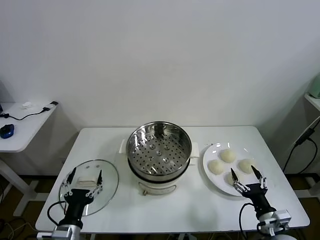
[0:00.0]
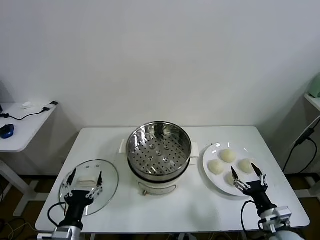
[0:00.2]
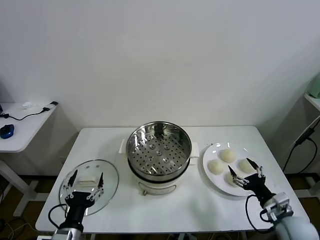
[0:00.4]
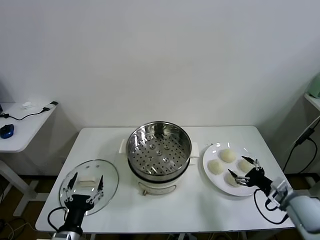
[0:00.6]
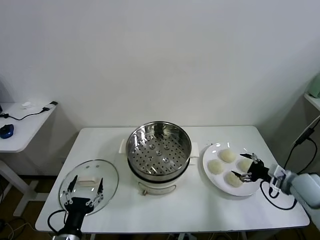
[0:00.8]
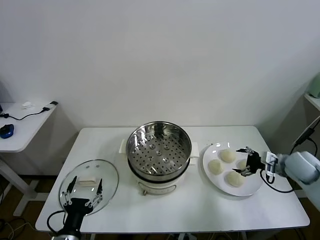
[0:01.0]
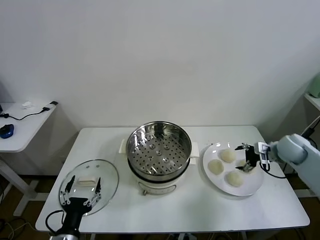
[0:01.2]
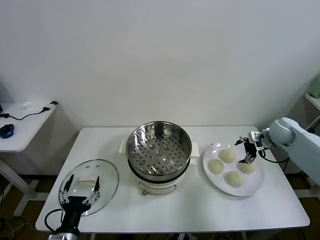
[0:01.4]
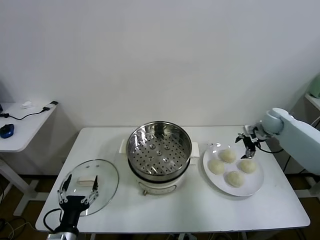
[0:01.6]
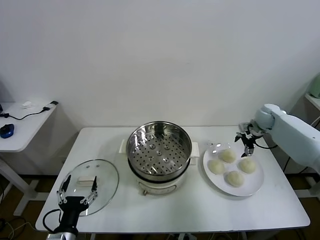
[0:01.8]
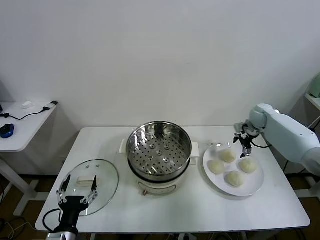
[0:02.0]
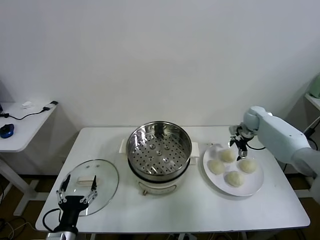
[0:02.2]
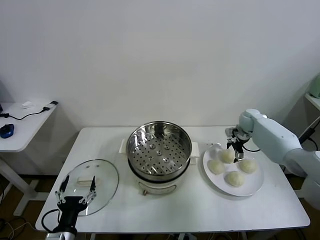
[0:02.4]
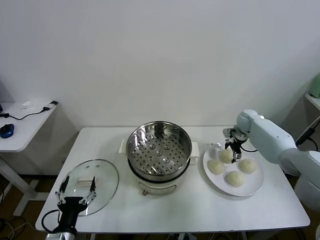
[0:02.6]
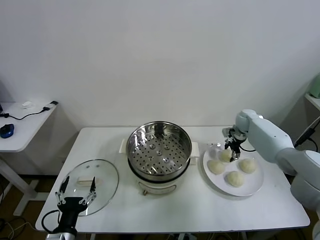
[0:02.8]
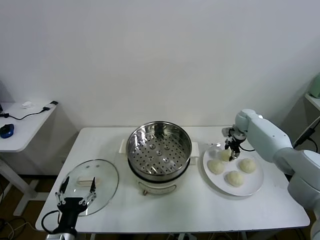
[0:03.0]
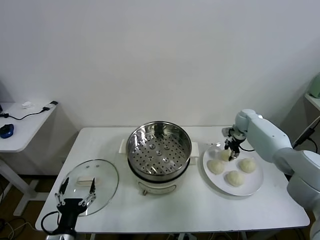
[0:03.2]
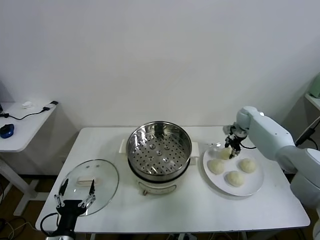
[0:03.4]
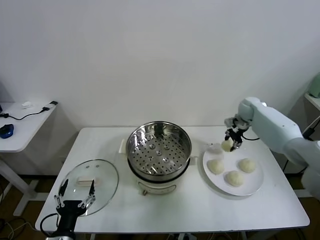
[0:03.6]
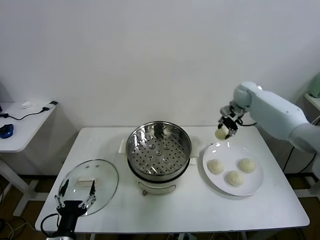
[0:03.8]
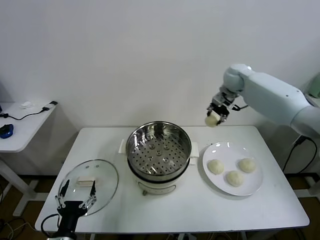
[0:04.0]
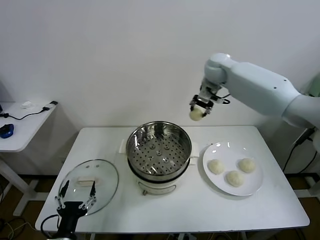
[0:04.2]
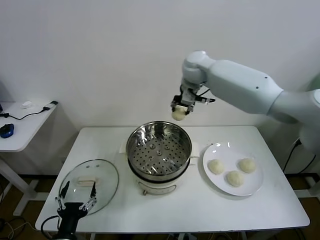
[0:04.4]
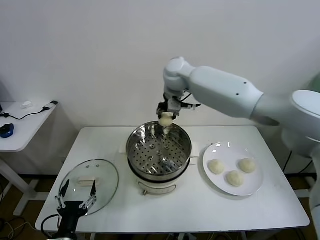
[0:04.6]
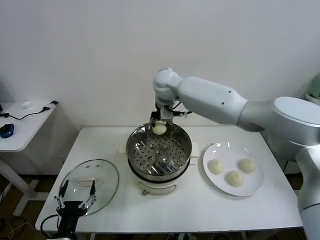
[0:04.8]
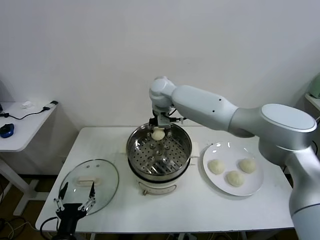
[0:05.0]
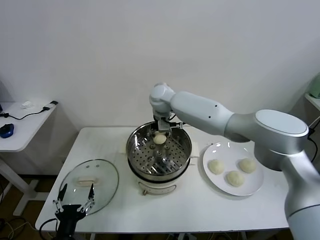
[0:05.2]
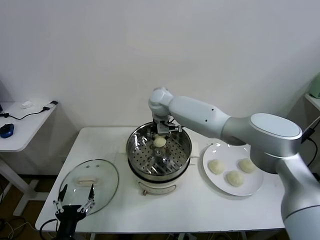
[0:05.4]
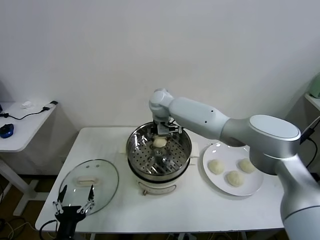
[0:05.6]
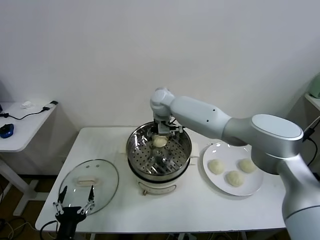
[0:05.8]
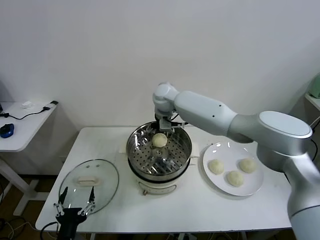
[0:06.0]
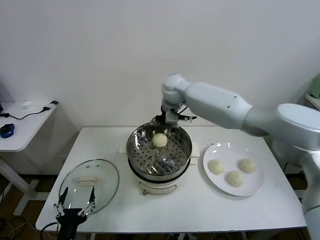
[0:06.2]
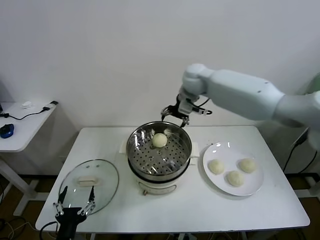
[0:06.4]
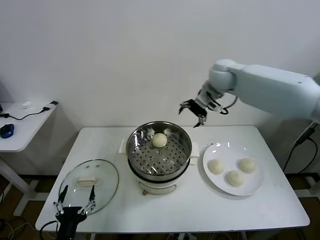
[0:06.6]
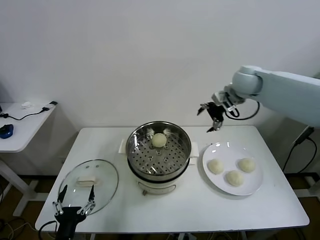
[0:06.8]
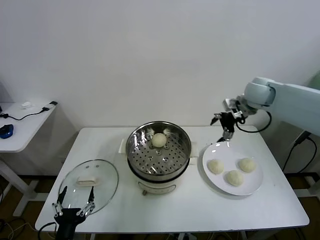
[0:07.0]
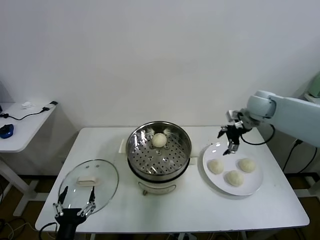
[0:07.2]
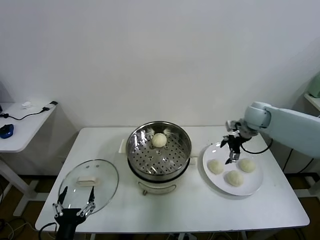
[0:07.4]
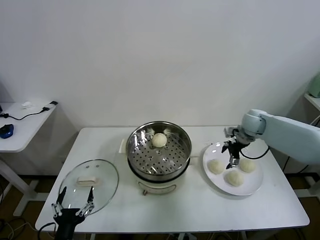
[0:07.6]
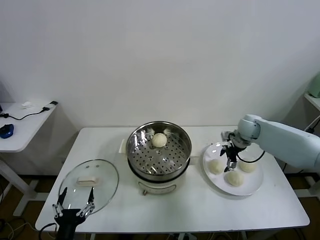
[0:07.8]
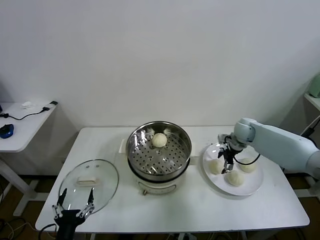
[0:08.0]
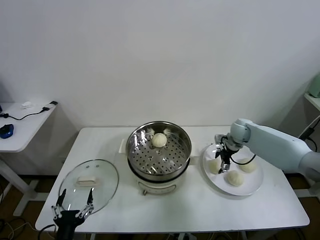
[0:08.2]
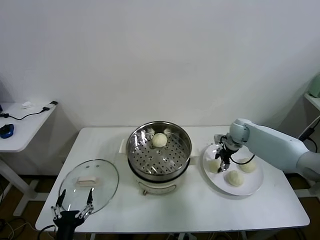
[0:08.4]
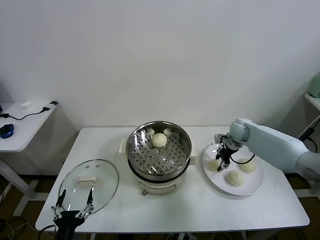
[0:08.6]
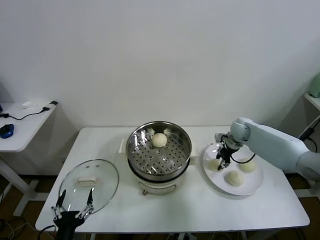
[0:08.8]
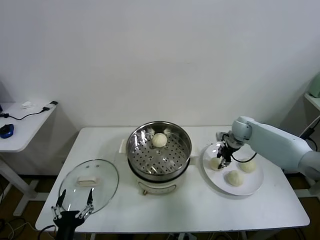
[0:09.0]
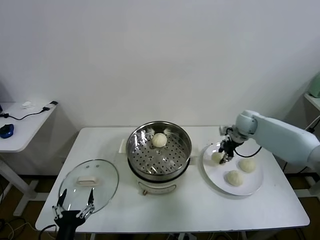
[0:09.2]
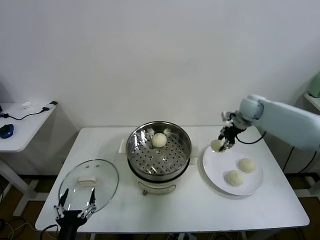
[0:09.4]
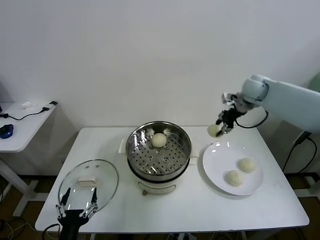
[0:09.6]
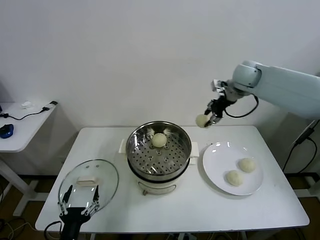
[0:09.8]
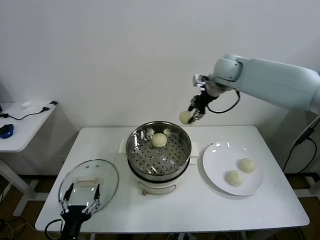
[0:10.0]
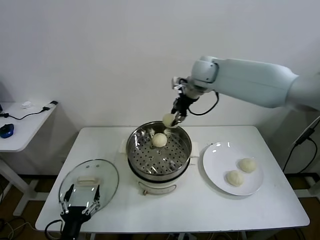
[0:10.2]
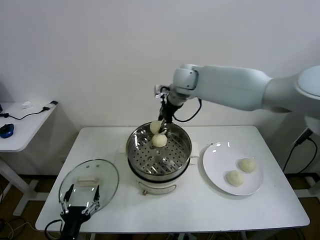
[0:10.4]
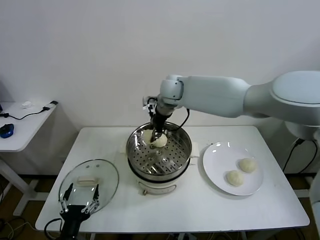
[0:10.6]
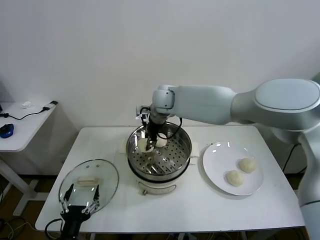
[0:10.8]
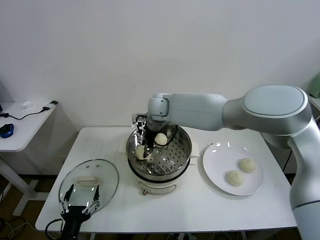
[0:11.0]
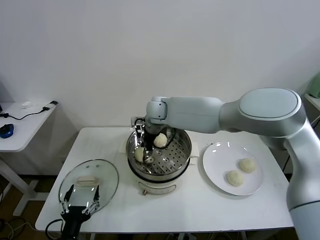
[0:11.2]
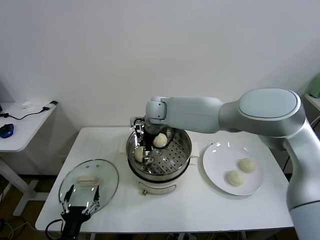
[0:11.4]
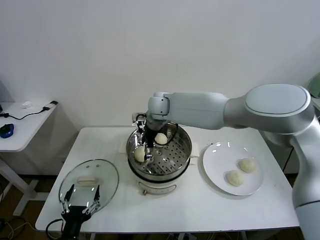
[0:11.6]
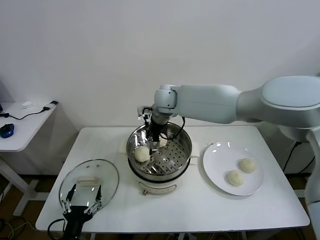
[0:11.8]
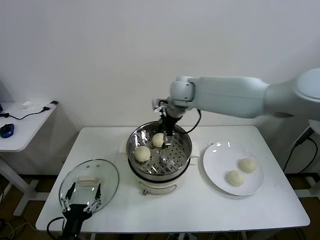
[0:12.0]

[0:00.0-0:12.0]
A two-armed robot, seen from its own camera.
Task of the whole recording: take steamed baozi put them in steamer.
Step, 0.0 to 3.0 s: Grasp the baozi in the plate with right gripper.
Step, 3.2 to 5.8 s: Place the baozi on the steamer with right gripper.
Step, 6.0 to 8.4 s: Grasp the baozi in the plate with right gripper.
Step, 8.6 to 11.6 s: Place the baozi on the steamer with right gripper.
1.6 to 3.0 s: The right gripper travels downward, to the left and forward by approximately 10 cm, and closes up.
3.0 to 4.4 s: The right gripper goes approximately 40 cm to the left and upward.
4.4 to 6.0 s: The right gripper moves downward and to the left, about 10 cm, and opens up.
6.0 to 7.6 s: The right gripper goes about 30 cm to the right.
7.6 to 9.0 s: The right gripper closes.
9.0 to 10.4 s: The right gripper is displaced to the left and upward by roughly 35 cm.
10.4 to 12.0 s: The right gripper travels to the left and back again, roughly 10 cm each way, and opens.

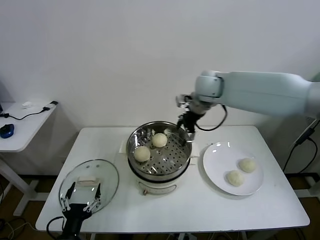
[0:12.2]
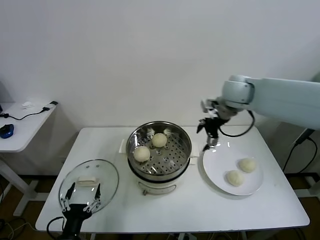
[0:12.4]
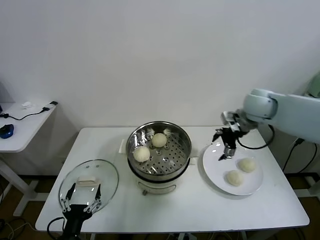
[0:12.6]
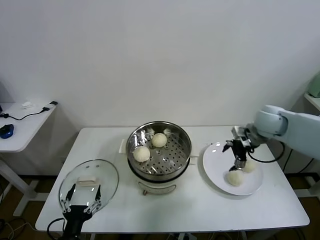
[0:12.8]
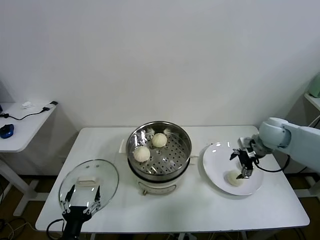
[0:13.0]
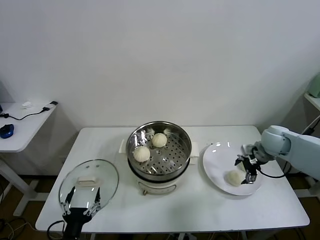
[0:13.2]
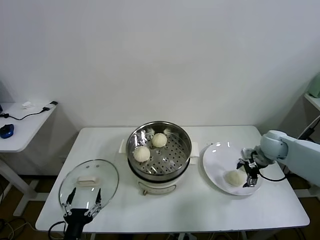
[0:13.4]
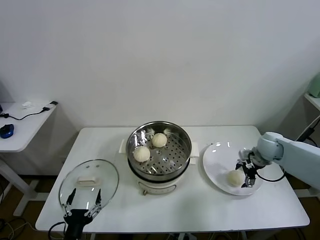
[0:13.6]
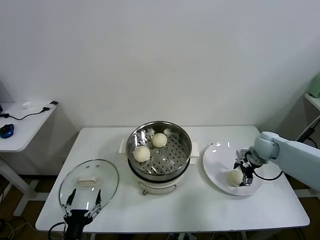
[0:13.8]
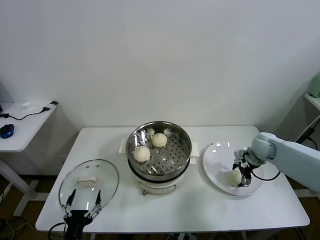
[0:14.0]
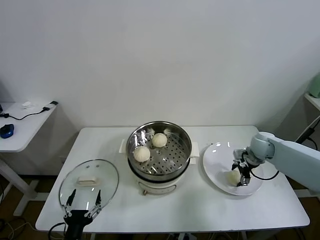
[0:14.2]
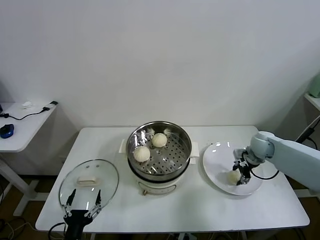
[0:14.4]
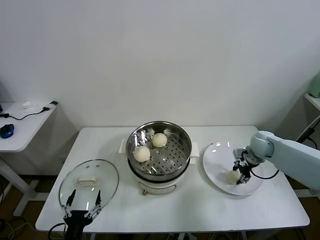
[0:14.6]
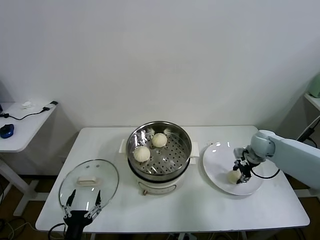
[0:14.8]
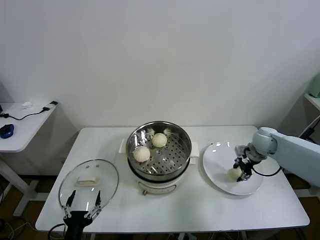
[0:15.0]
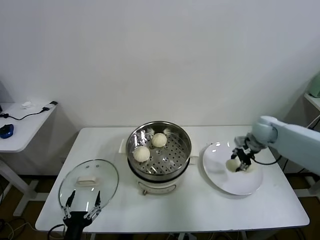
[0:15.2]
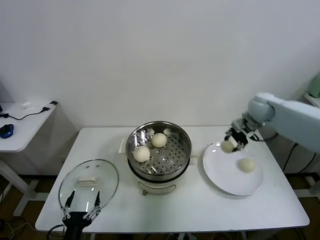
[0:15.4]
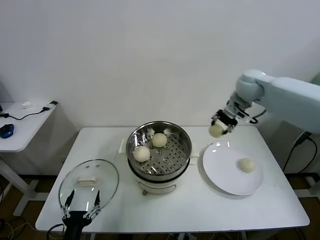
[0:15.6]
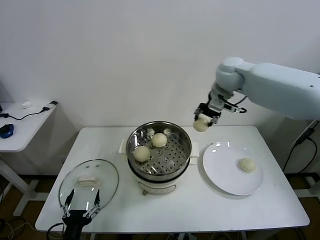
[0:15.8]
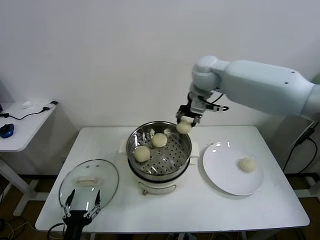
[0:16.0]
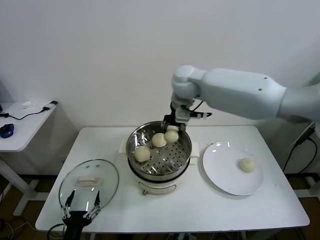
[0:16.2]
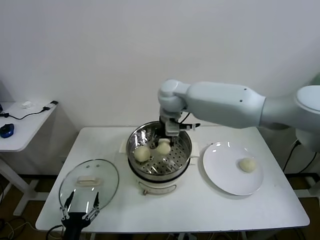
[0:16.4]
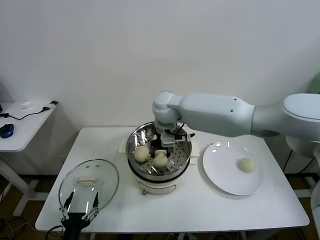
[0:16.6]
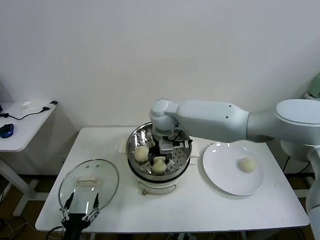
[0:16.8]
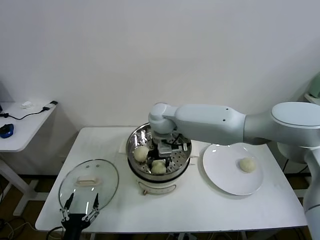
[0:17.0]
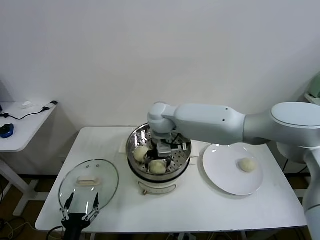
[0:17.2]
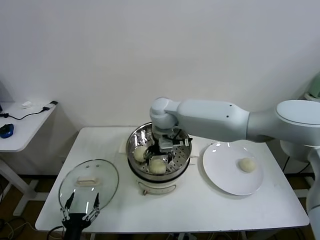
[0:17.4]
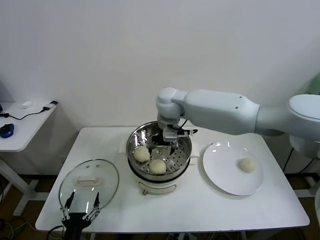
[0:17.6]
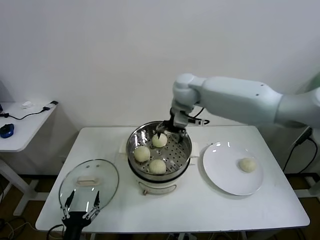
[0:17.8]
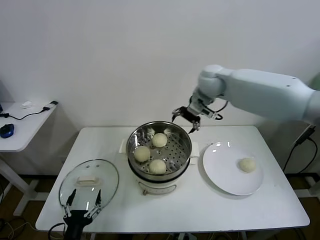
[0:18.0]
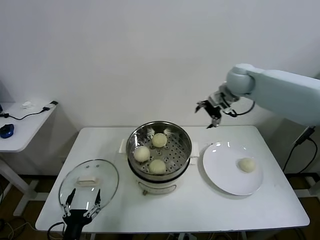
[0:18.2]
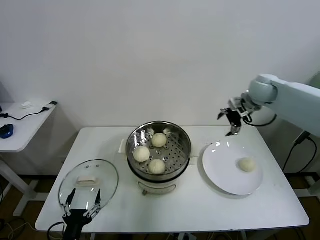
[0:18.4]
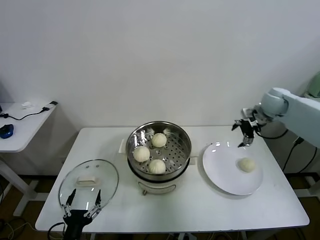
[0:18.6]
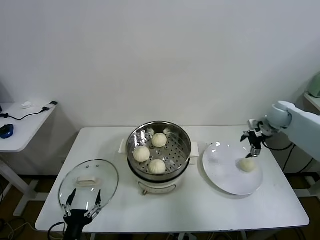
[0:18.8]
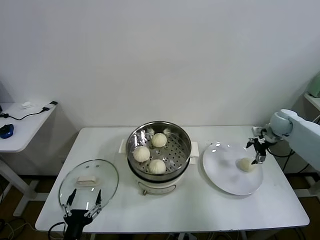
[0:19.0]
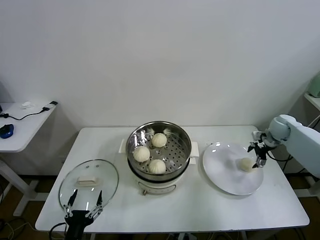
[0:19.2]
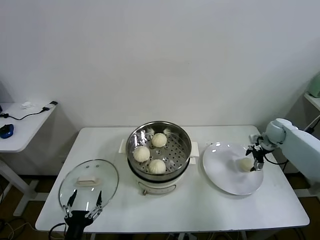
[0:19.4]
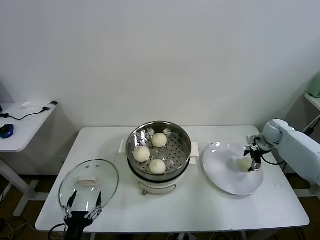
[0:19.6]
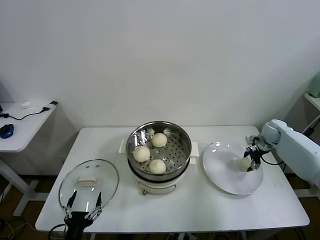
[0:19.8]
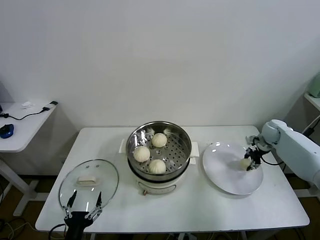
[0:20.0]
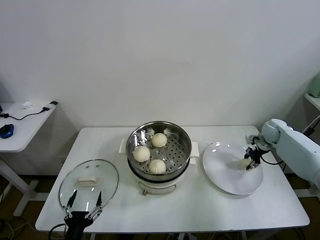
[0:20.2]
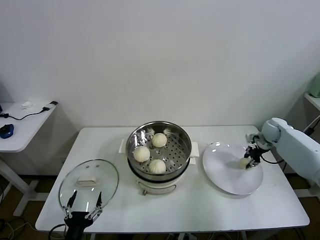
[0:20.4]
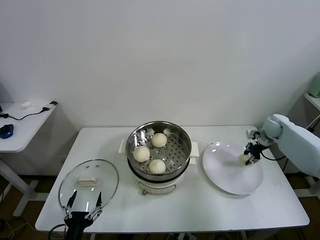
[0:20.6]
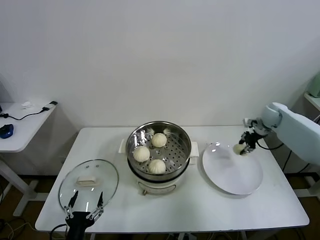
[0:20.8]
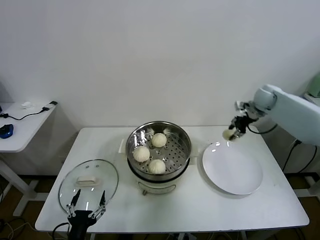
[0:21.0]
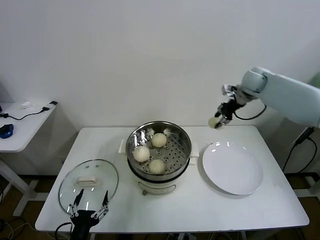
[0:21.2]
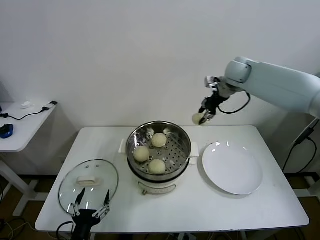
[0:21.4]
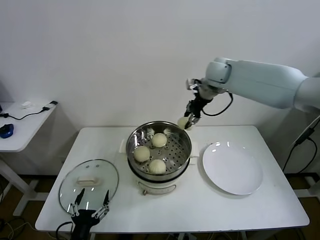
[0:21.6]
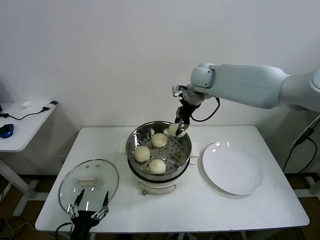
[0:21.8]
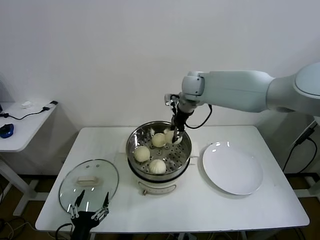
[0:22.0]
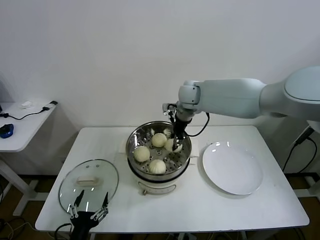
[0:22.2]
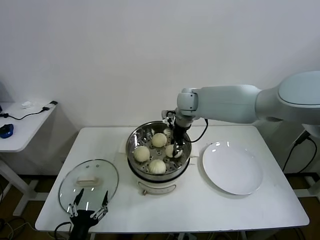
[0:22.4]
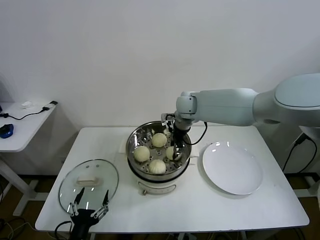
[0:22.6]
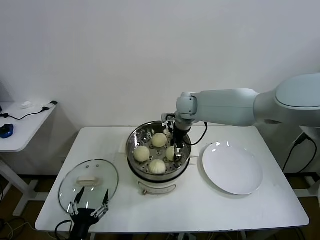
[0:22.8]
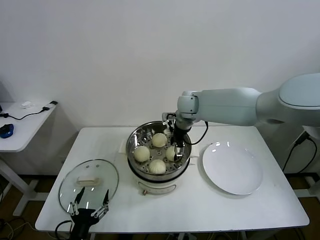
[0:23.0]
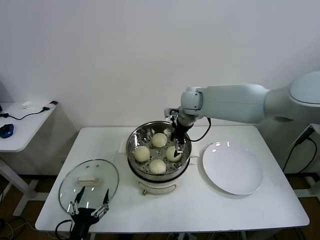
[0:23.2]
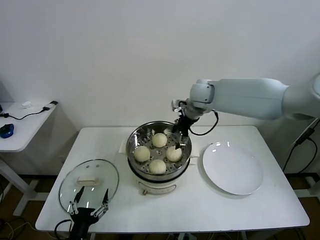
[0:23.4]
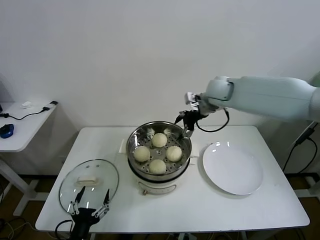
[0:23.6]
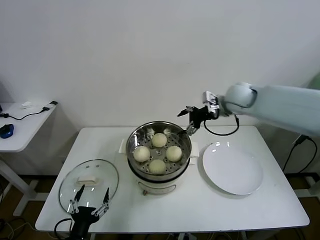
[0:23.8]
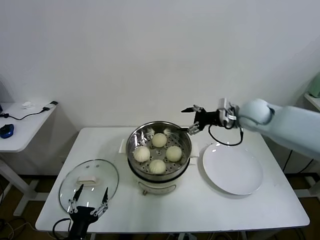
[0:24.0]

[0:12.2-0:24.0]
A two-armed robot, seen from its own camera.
Task of the whole recording: take steamed baozi put them in steamer.
Step, 12.2 to 14.4 s: Grasp the baozi in the plate with right gripper.
Step, 14.6 to 17.4 s: Place the baozi on the steamer with right gripper.
Step, 17.6 to 19.8 s: Grasp the baozi in the plate with right gripper.
Step, 20.2 to 23.2 s: Place the baozi on the steamer with right gripper.
12.2 to 13.6 s: The right gripper moves to the right and downward, roughly 30 cm.
13.6 to 15.2 s: The right gripper heads upward, covering approximately 5 cm, and closes its fingers.
15.2 to 16.6 s: The right gripper travels to the left by approximately 35 cm.
16.6 to 18.2 s: The right gripper goes some 25 cm to the right, and opens.
18.2 to 19.6 s: The right gripper heads downward and to the right, covering about 30 cm.
19.6 to 21.0 s: The right gripper shifts approximately 15 cm upward and to the left, and closes up.
21.0 to 22.6 s: The right gripper goes some 30 cm to the left.
22.6 to 24.0 s: The right gripper moves to the right, some 20 cm, and opens up.
